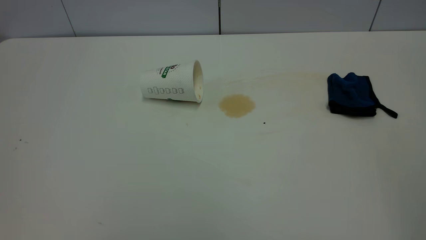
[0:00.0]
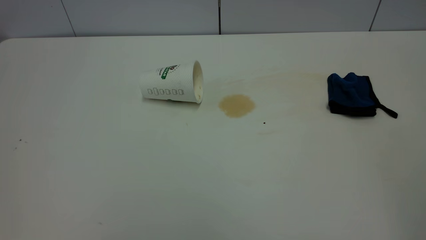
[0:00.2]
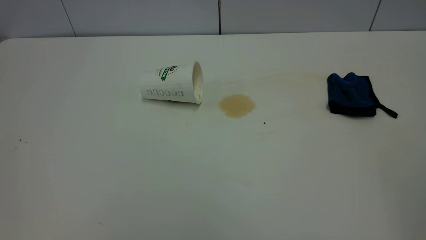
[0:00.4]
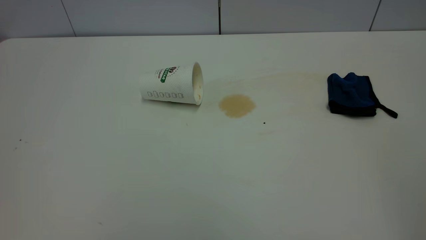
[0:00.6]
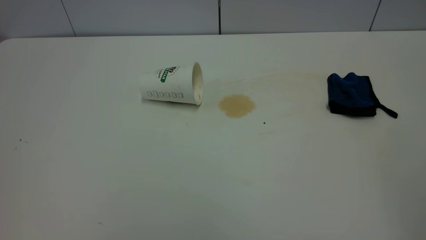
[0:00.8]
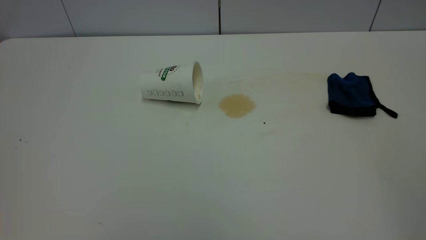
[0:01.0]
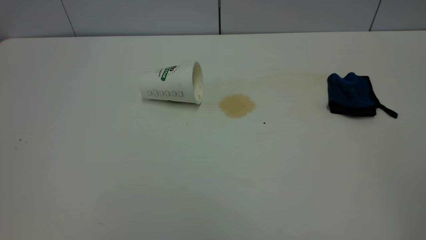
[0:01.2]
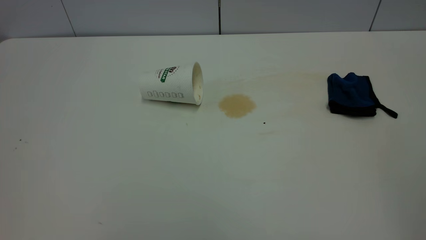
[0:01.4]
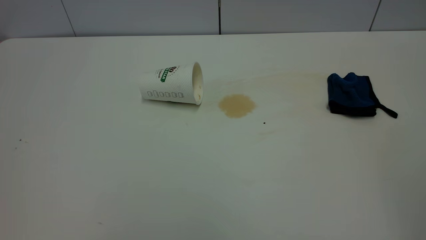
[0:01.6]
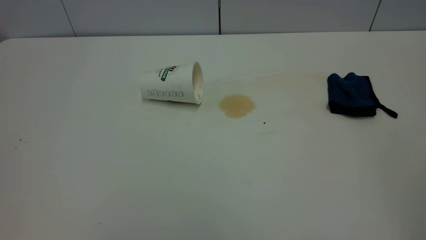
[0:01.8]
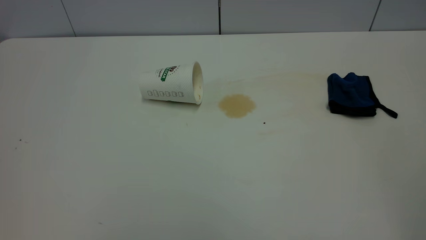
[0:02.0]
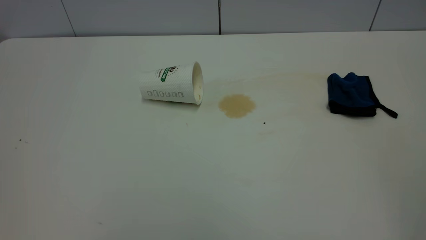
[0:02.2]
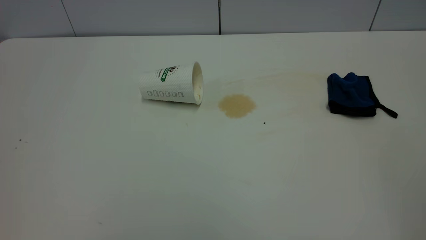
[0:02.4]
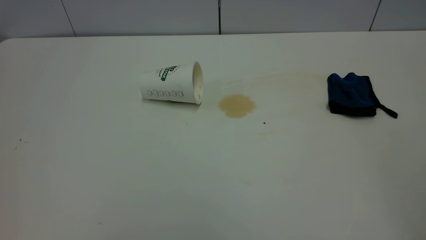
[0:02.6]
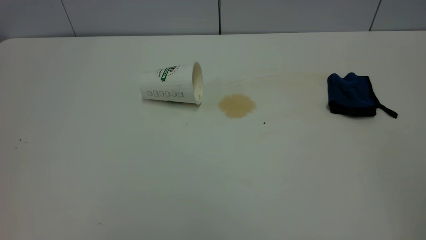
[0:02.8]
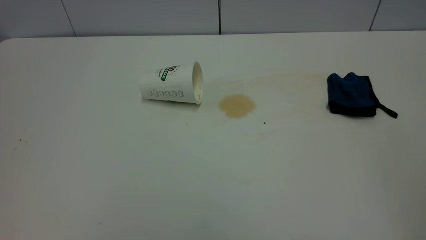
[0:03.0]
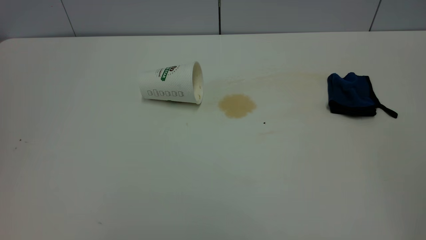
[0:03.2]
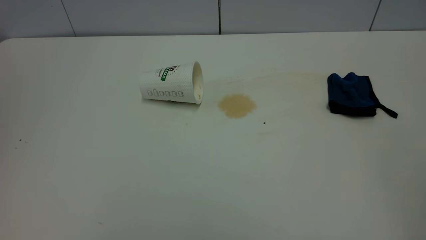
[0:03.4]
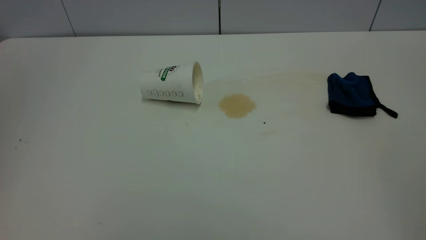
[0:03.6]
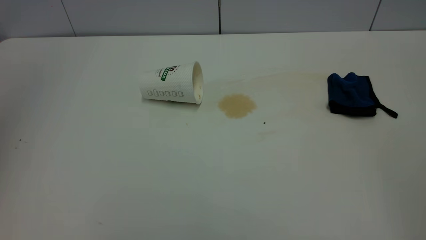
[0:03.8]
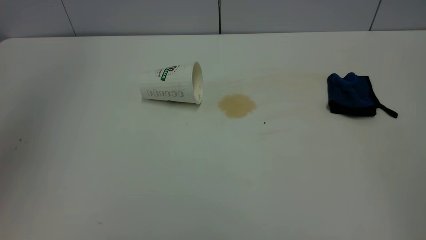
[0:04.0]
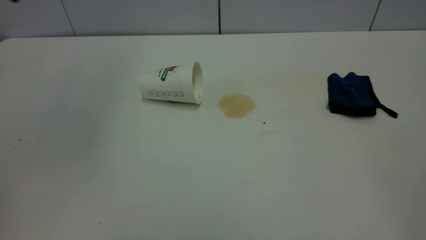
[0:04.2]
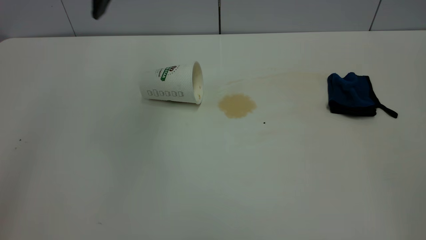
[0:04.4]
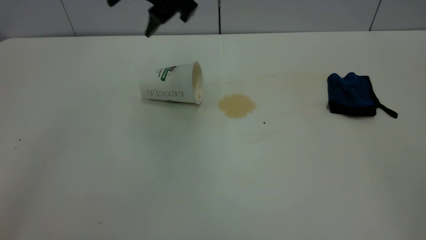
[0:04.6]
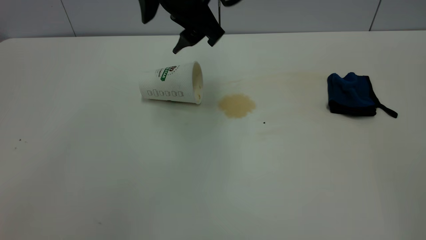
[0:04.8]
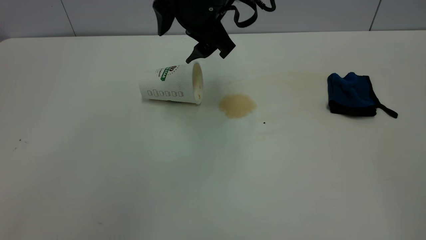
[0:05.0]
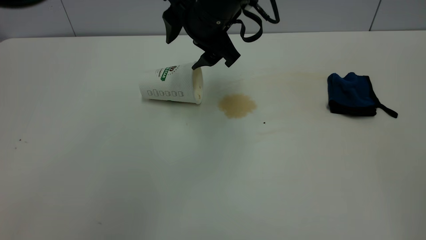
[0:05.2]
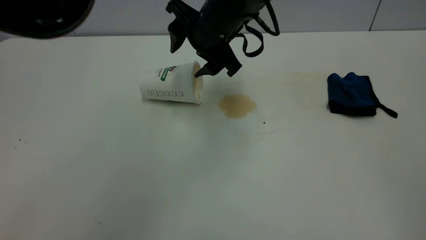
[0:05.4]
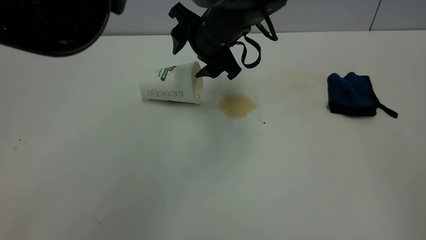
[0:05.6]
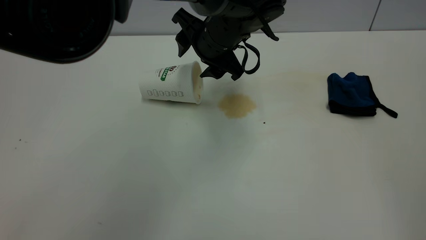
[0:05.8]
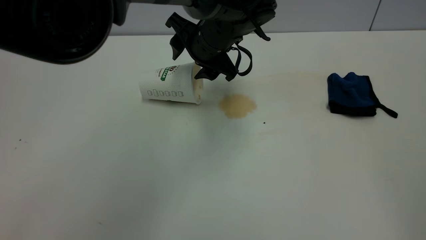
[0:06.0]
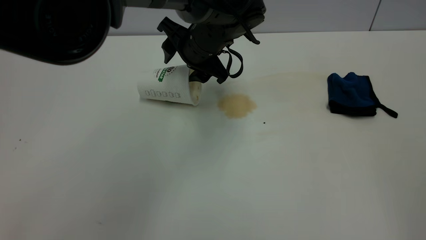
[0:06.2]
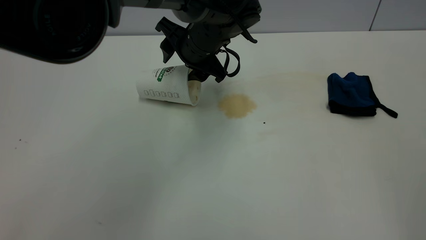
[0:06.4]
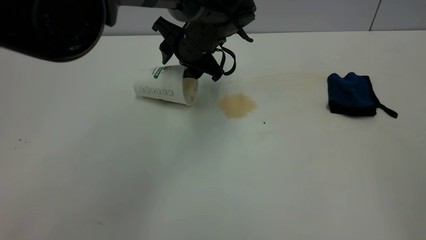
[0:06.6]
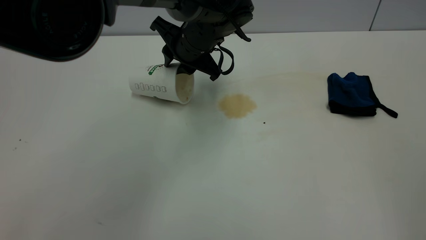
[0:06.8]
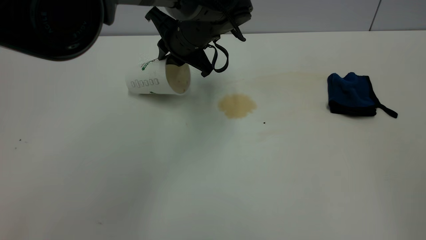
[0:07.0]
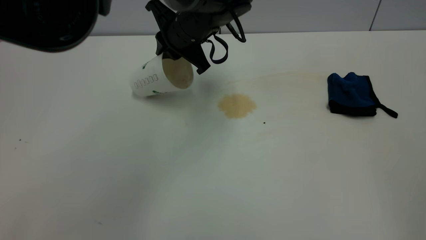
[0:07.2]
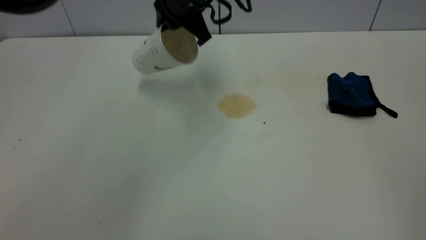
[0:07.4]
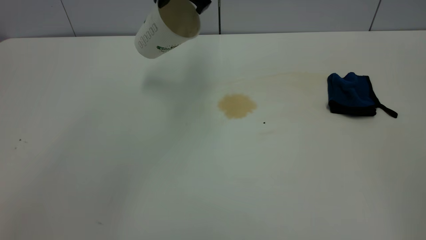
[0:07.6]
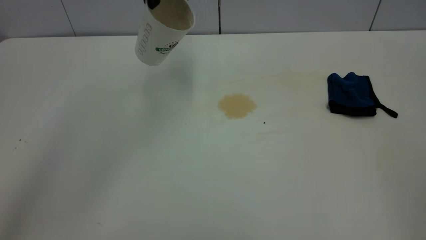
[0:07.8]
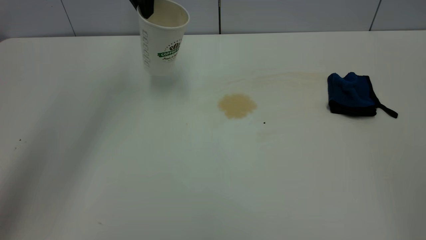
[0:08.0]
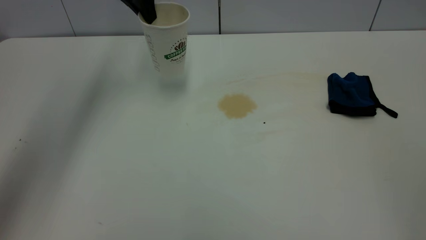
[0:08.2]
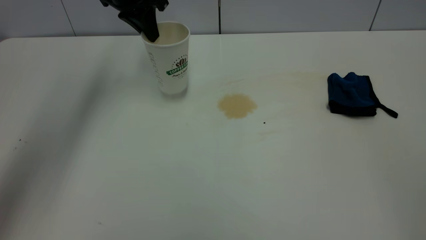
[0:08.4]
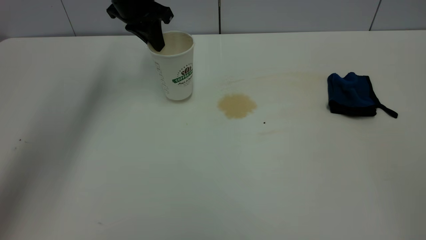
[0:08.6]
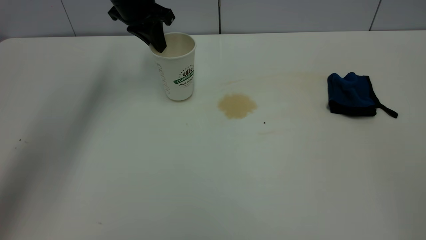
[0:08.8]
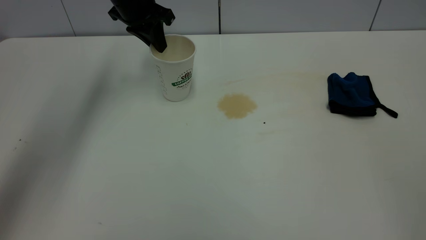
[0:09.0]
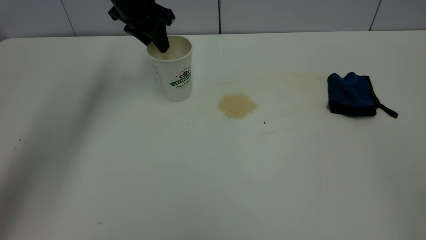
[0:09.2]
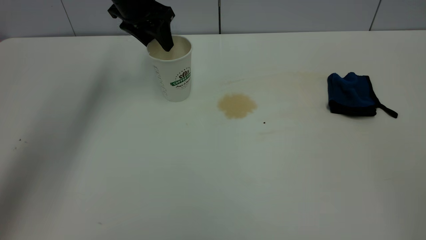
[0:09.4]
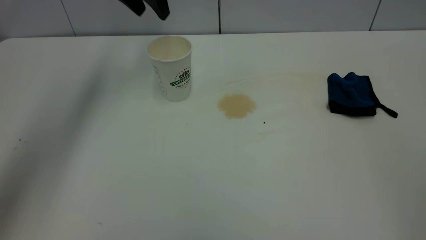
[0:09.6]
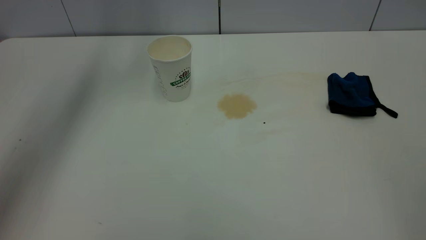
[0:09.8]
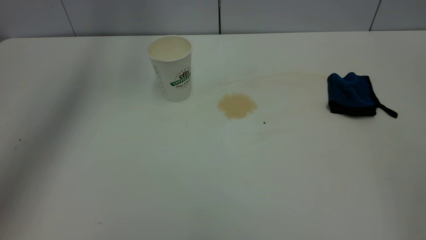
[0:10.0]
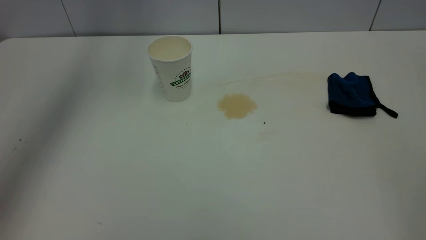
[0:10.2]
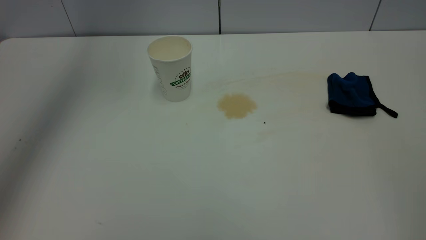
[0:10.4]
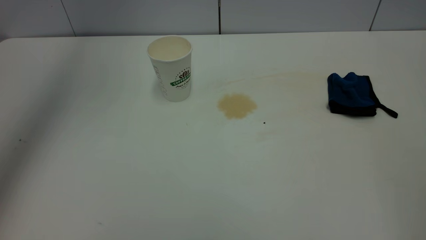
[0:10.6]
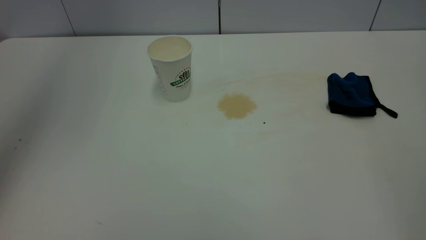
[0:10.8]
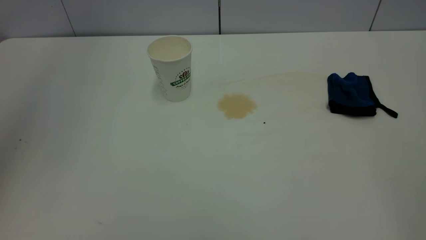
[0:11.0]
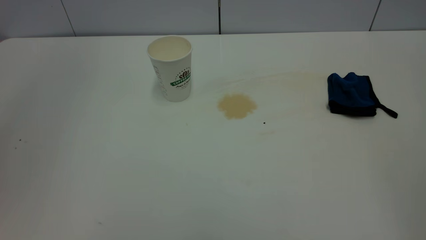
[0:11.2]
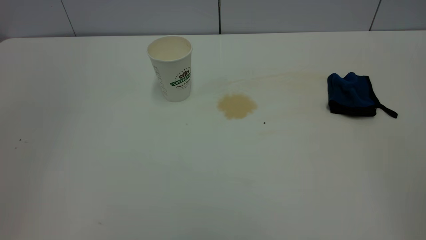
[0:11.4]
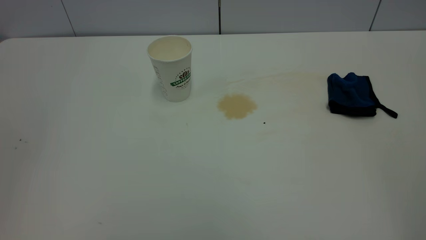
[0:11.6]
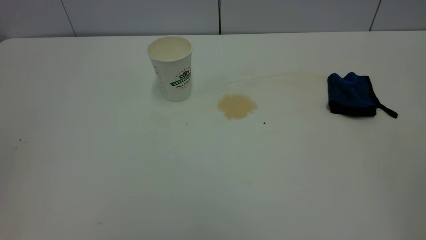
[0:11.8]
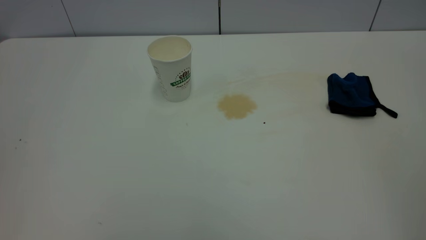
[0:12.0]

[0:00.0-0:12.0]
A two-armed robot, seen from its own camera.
Task of the whole recording: the left gripper pick up the fallen cup and place it upright, the right gripper grasp the blue rag and wipe the tea stain on the table, the right gripper put the blue rag back in its original position.
Step, 0:00.0 to 0:09.4: Stand the paper cup upright.
0:00.0 to 0:01.6: Both grippers stay put.
0:04.4 to 0:06.0: The left gripper heads downward, to the right and forward, covering approximately 20 cm.
0:06.0 to 0:07.6: The left gripper moves upward, roughly 15 cm, and closes up.
0:07.6 to 0:09.0: The left gripper is displaced to the left, downward and forward by approximately 15 cm.
0:09.0 to 0:10.4: The left gripper shifts roughly 25 cm upward, and opens, then closes once more.
0:10.4 to 0:12.0: The left gripper goes roughly 40 cm backward.

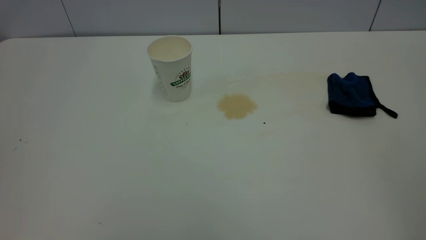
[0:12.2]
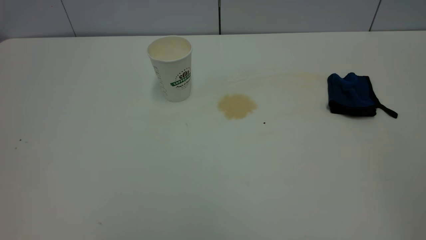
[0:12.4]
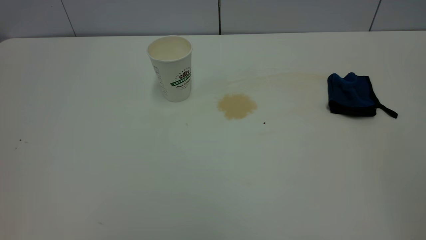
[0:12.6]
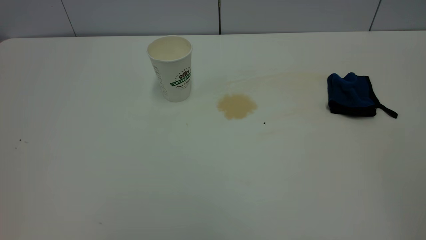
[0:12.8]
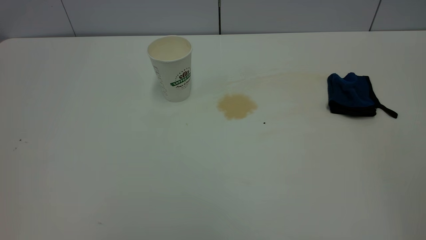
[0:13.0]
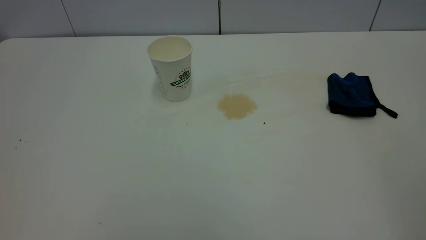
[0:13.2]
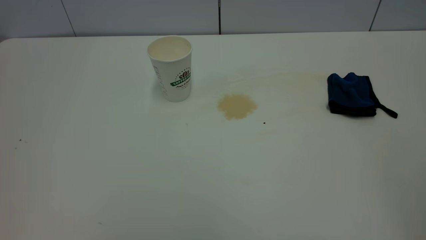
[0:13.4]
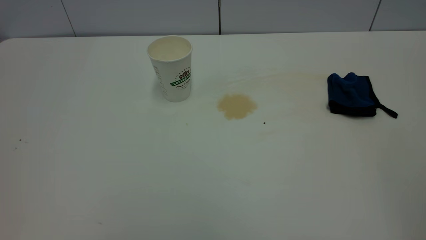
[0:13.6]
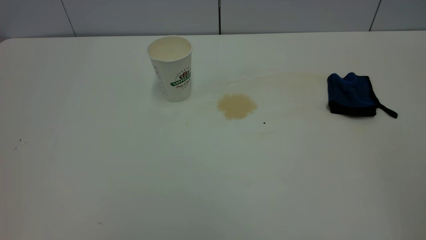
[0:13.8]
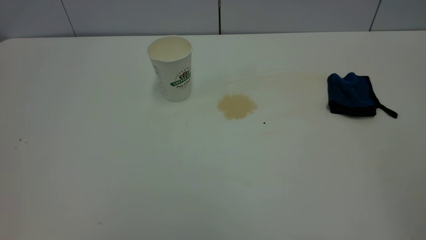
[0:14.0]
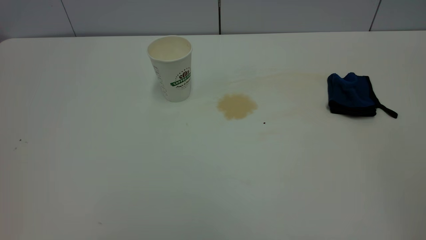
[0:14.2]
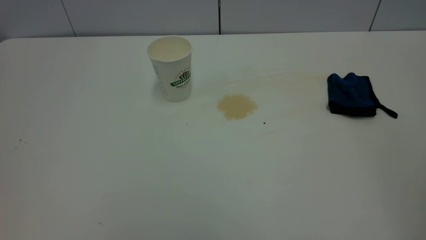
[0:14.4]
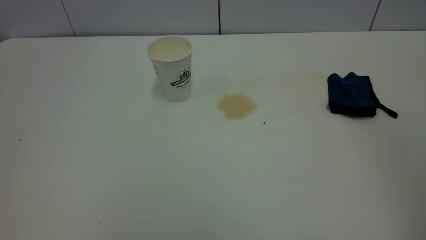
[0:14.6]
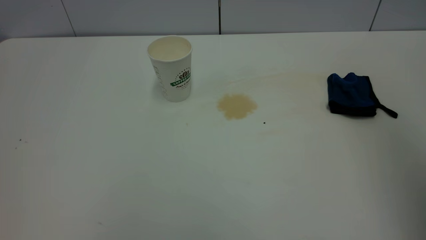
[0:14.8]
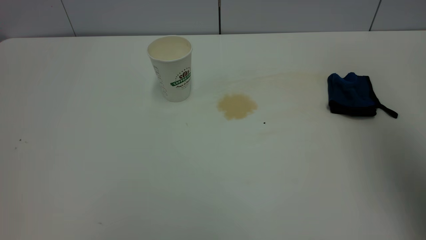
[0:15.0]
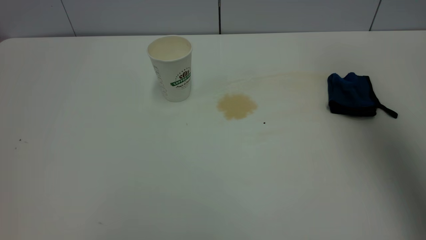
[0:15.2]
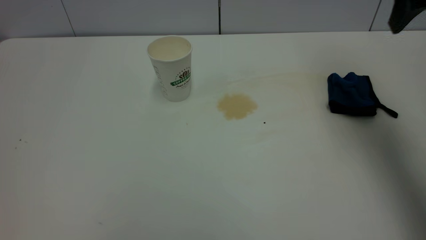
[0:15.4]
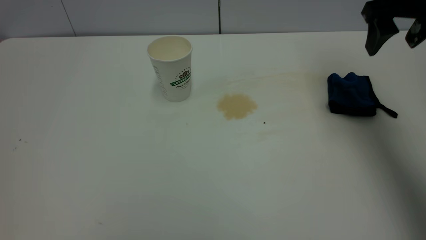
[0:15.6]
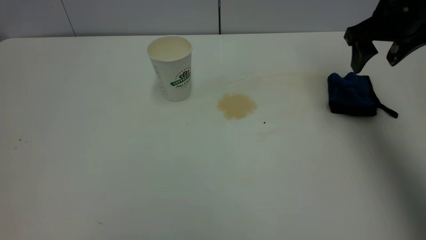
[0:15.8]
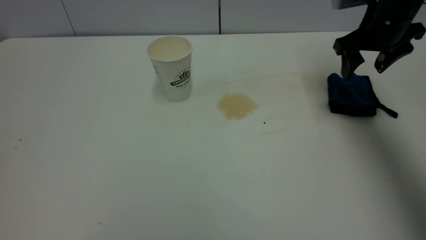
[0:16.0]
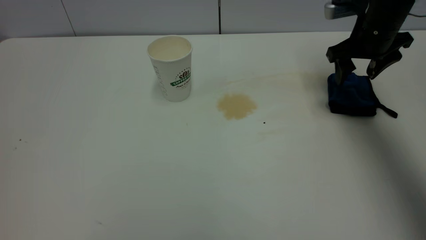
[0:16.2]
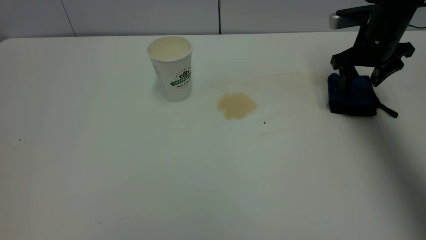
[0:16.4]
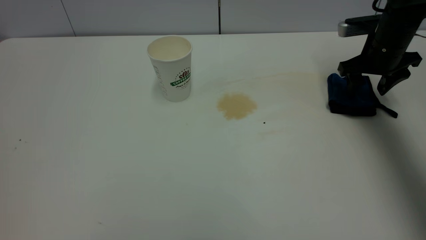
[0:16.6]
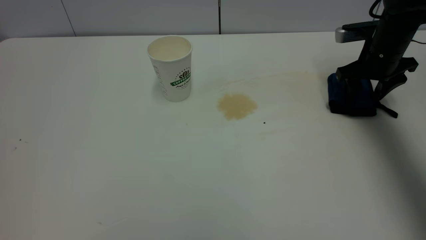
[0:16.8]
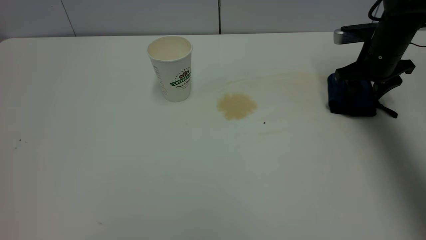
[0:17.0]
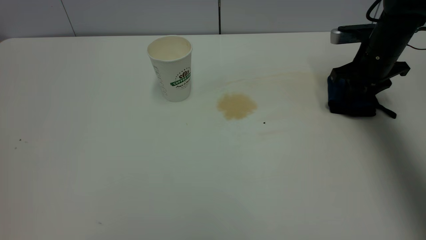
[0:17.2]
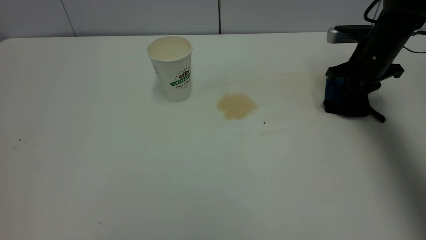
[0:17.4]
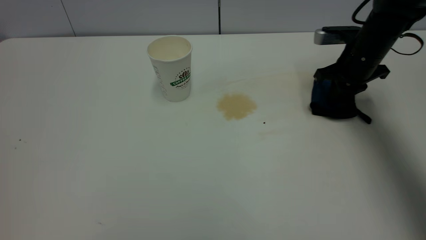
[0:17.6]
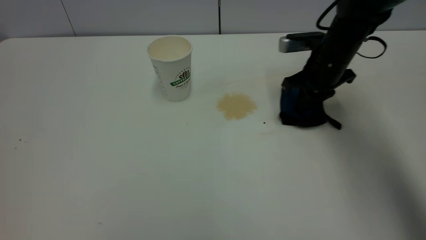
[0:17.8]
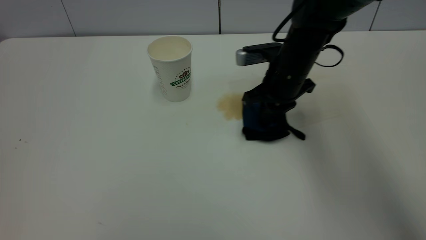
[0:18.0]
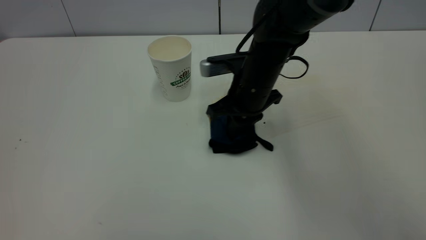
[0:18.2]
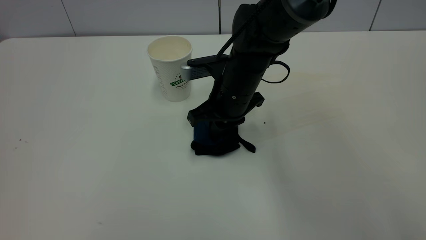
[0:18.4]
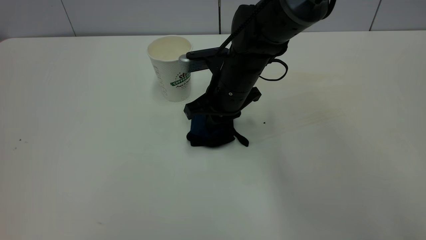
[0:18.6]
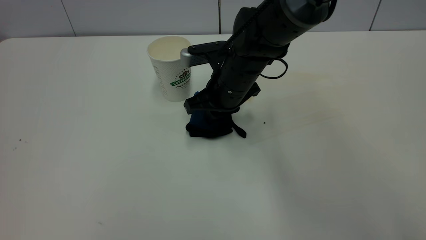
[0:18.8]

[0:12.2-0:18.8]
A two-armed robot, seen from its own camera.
Task of the whole recording: the left gripper pick up the fallen cup and place it upright, the right gripper grasp the blue rag and wipe the tea stain on the table, the right gripper put the blue rag back in its original position.
0:13.8 to 0:15.4: The right gripper shifts about 35 cm forward.
0:15.4 to 0:17.2: The right gripper moves downward and forward, approximately 20 cm, and closes its fingers.
0:17.2 to 0:18.8: The right gripper heads to the left, covering about 25 cm.
